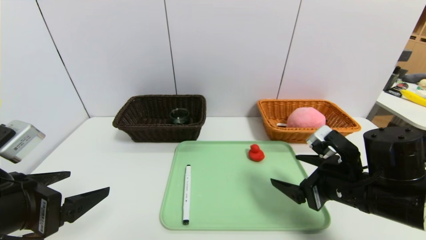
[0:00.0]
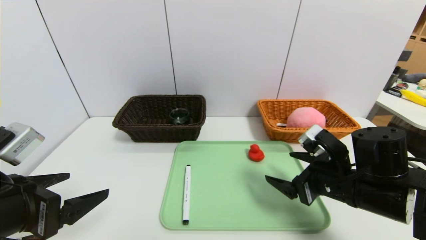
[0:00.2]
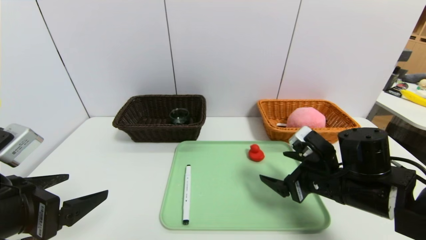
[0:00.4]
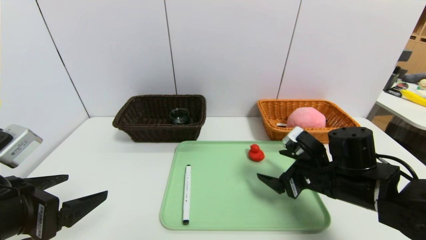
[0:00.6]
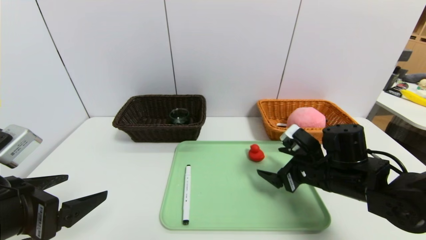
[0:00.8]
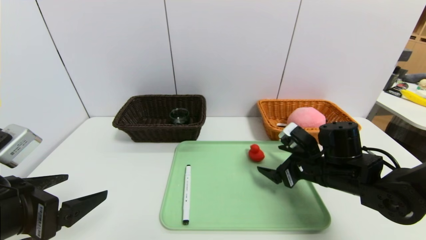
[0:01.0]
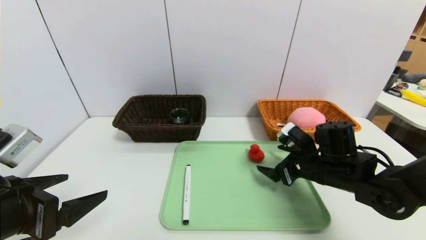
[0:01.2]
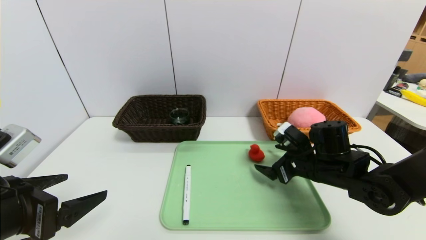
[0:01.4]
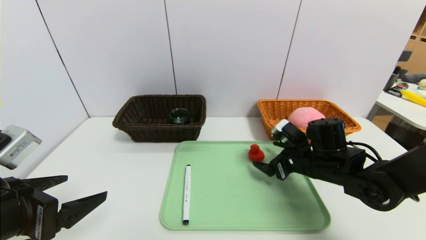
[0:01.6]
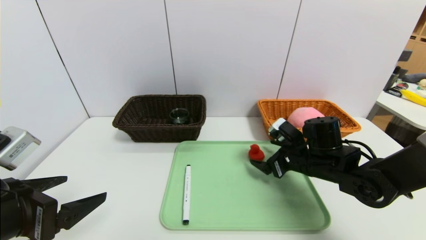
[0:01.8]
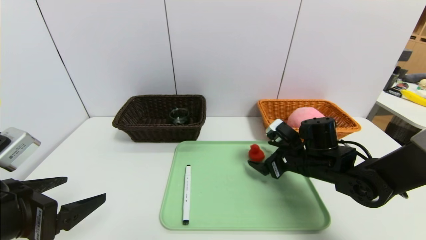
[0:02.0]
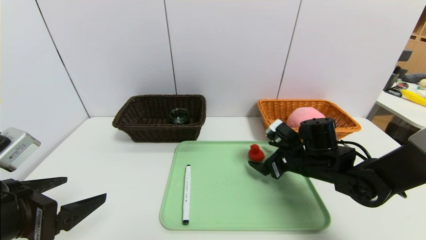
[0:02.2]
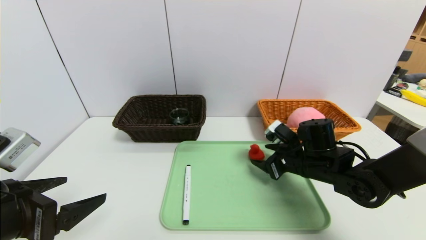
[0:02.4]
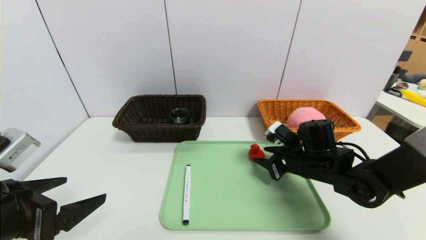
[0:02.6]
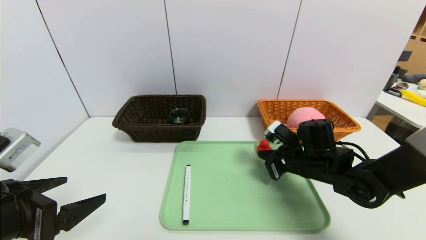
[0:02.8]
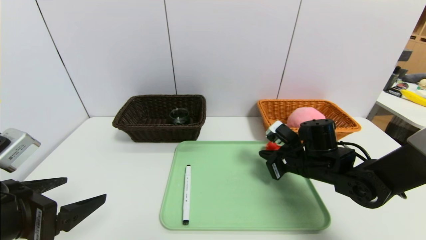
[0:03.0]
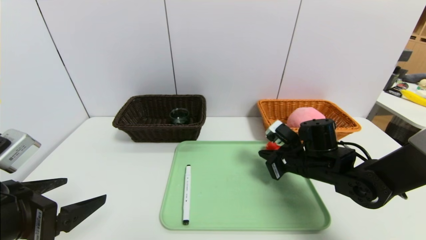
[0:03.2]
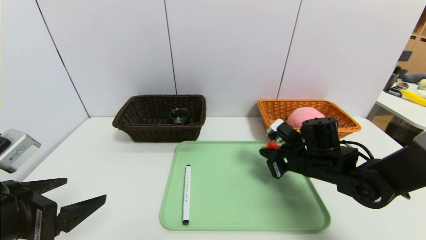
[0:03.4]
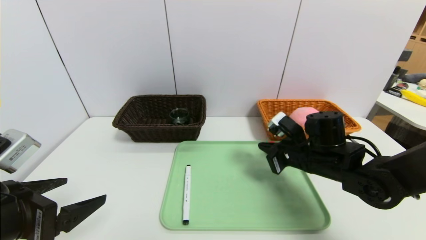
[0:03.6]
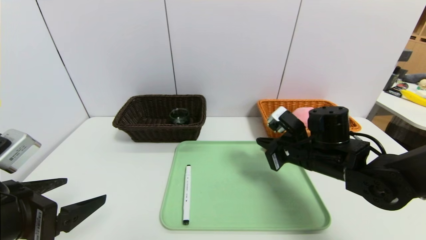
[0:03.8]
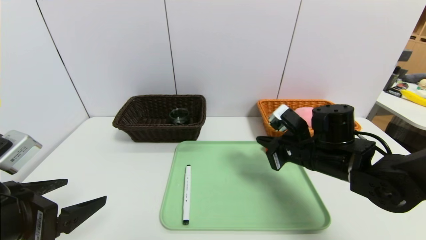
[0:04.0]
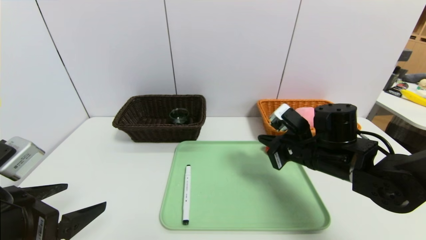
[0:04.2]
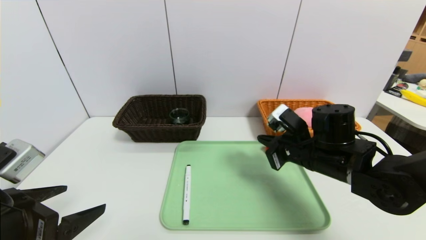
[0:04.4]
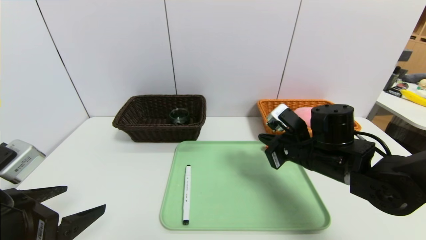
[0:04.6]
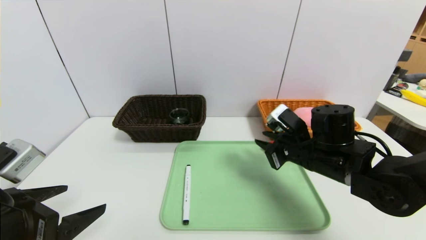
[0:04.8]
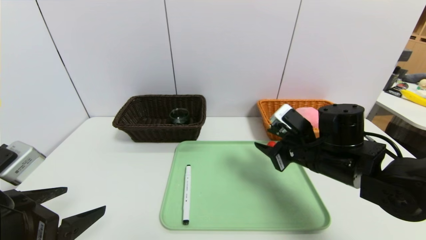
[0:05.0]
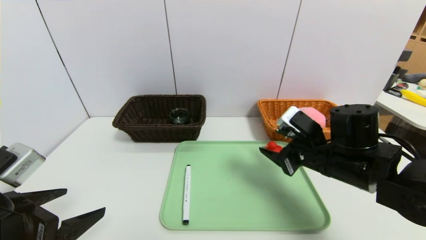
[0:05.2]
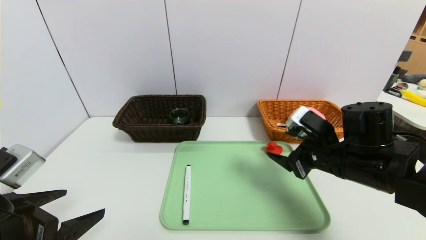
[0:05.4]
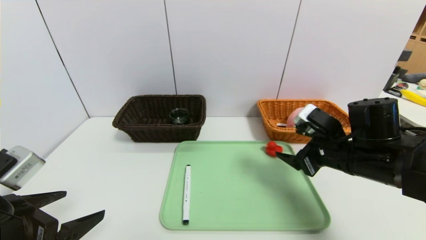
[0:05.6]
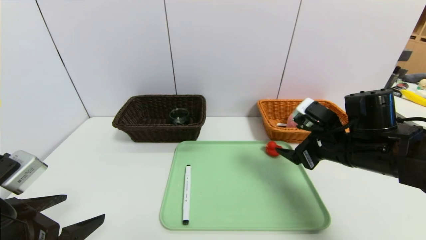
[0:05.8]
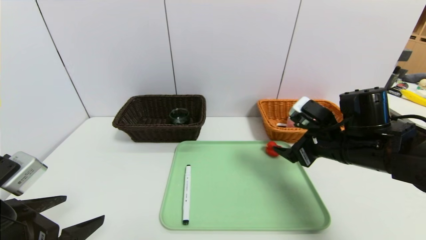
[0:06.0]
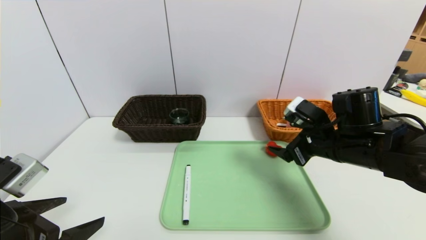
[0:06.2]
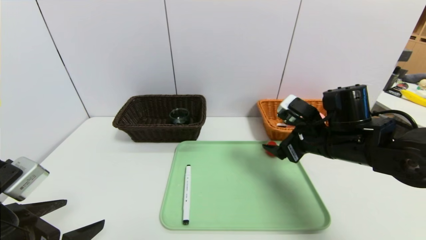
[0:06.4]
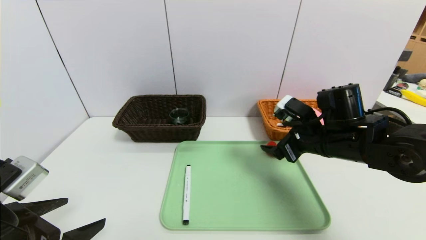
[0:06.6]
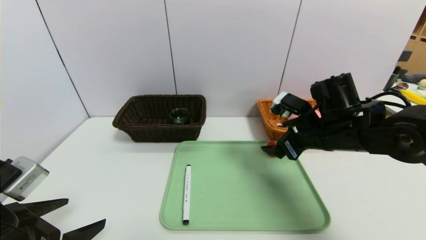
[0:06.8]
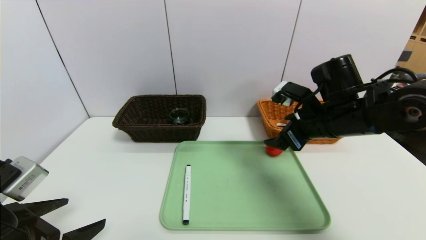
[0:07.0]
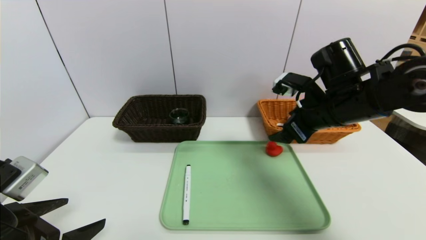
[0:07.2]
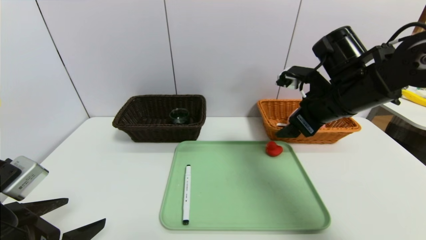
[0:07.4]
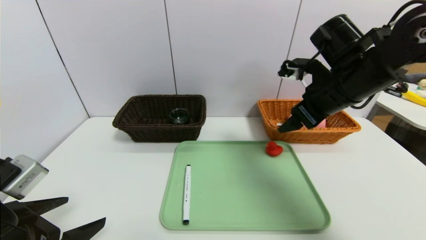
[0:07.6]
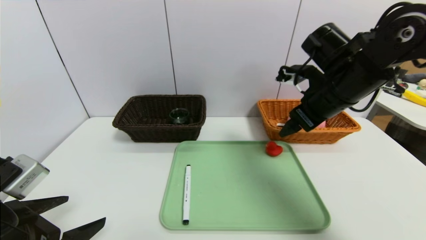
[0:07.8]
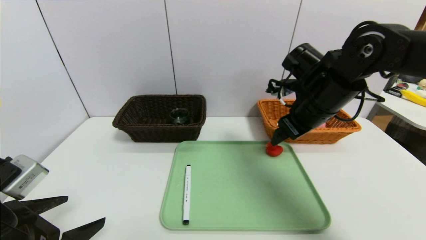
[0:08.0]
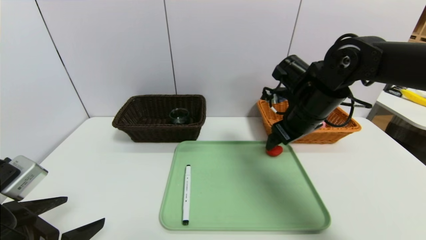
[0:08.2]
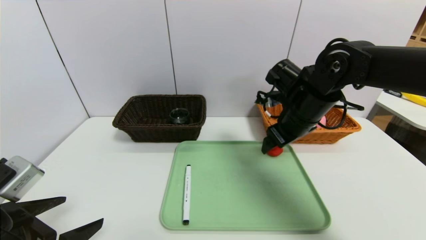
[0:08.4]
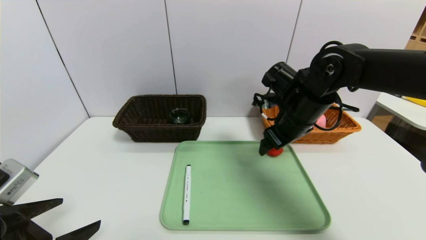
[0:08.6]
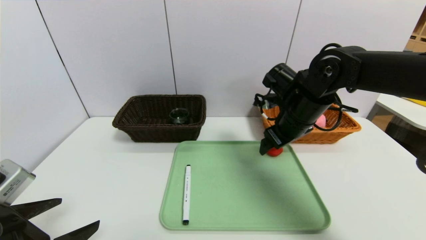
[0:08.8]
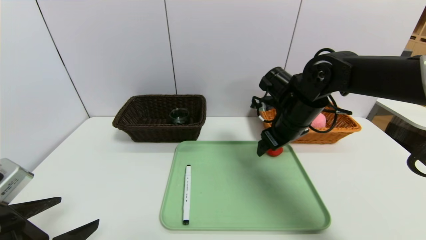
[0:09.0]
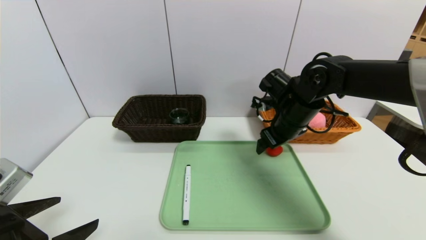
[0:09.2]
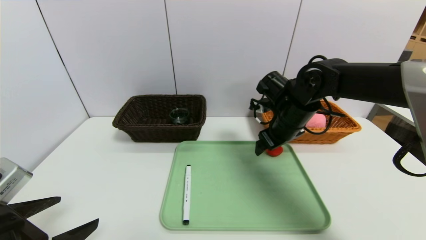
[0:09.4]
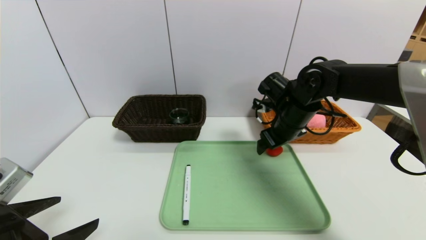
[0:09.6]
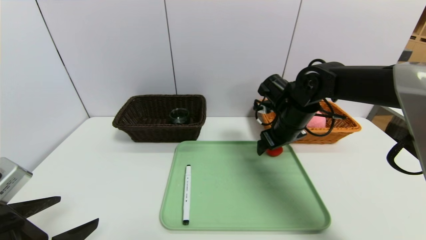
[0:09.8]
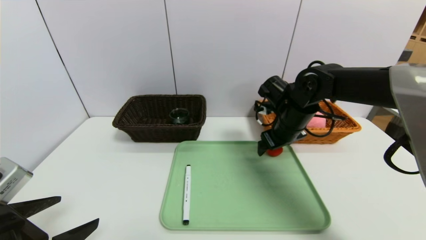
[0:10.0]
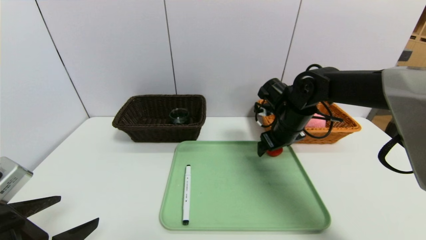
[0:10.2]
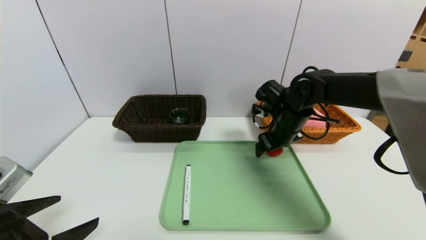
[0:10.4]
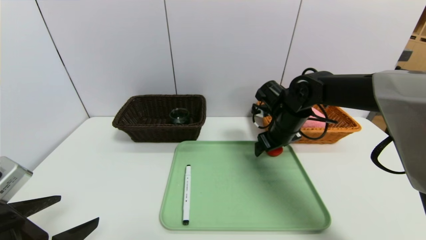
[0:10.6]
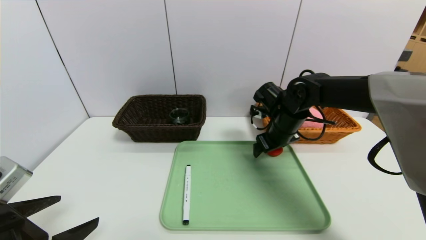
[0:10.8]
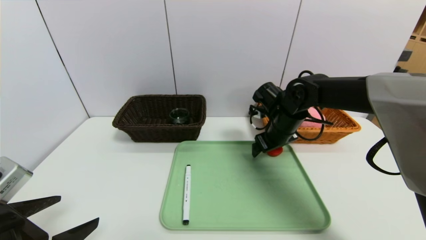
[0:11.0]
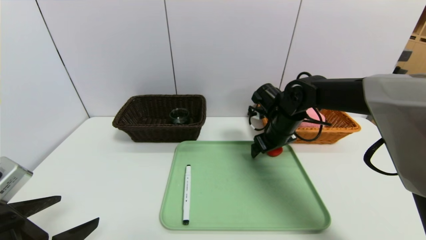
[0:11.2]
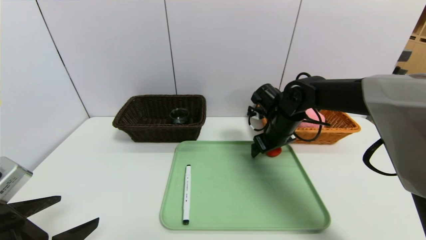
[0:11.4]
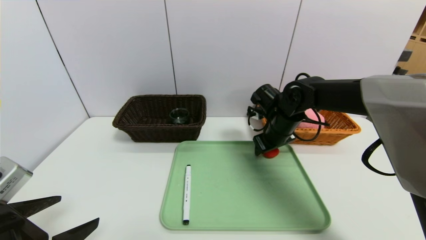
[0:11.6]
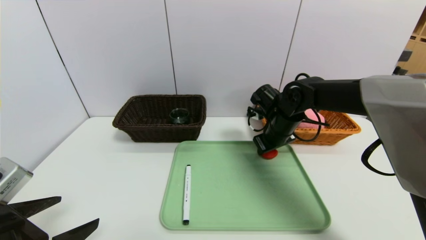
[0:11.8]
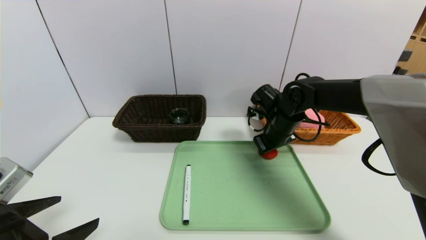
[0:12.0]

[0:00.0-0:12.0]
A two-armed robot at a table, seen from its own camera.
Task of the whole recording: place the food in the right basket with the right gripper, and place the non food items in the left basket with the left gripper.
0:00.0 to 0:01.6: The right gripper goes about 10 cm forward.
0:01.6 to 0:03.0: The right gripper closes.
0:03.0 to 0:04.4: The right gripper travels upward by approximately 5 cm.
0:04.4 to 0:06.0: The right gripper ends up roughly 5 cm from where it was, and opens up.
0:06.0 to 0:07.6: The right gripper heads upward, covering some 10 cm.
0:07.6 to 0:09.0: The right gripper is displaced downward by roughly 10 cm.
0:09.0 to 0:10.4: The grippers stay close to where they were, moving slightly.
0:10.4 to 0:12.0: The right gripper closes its fingers.

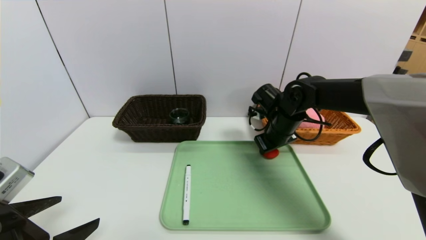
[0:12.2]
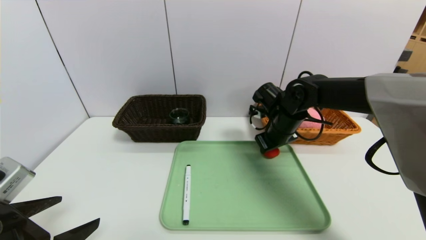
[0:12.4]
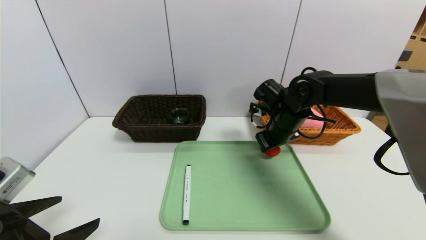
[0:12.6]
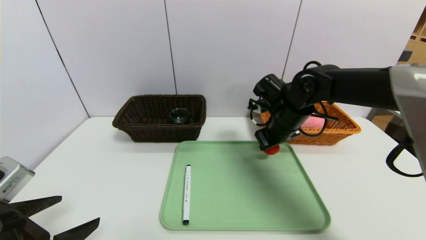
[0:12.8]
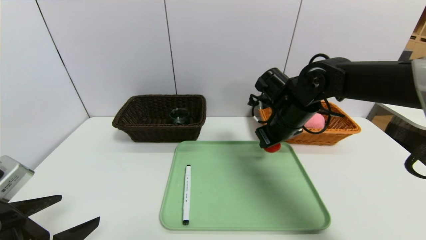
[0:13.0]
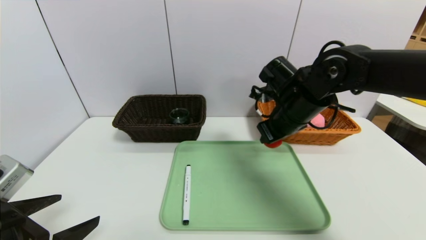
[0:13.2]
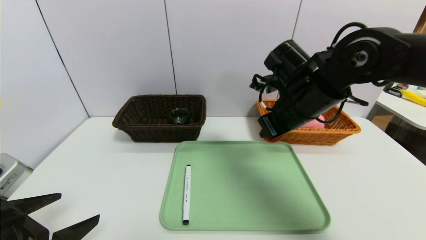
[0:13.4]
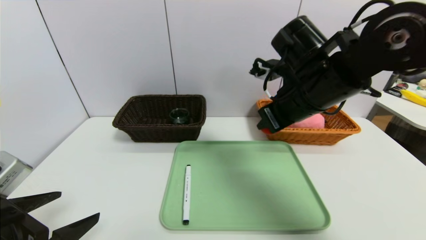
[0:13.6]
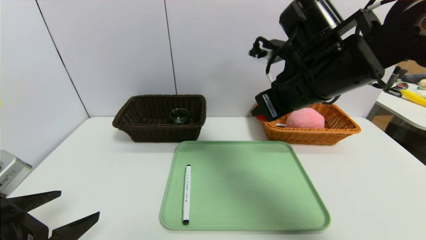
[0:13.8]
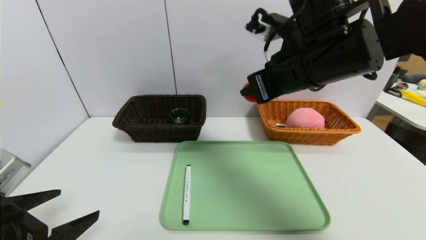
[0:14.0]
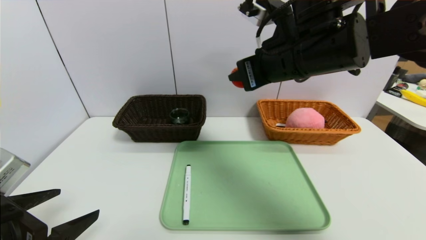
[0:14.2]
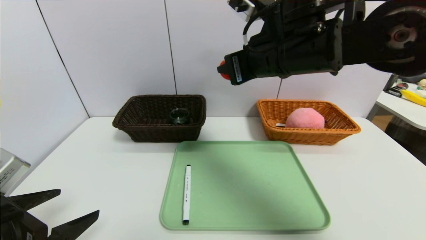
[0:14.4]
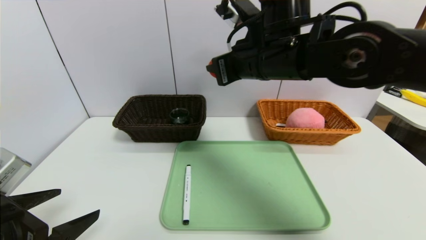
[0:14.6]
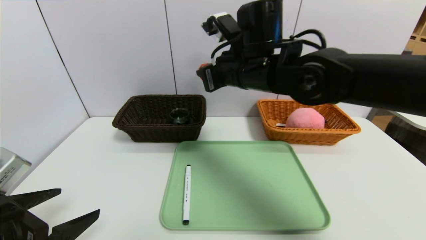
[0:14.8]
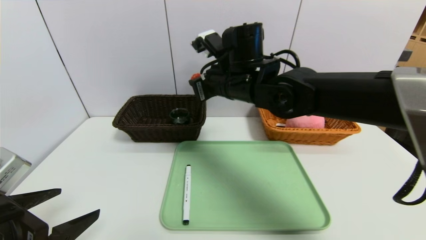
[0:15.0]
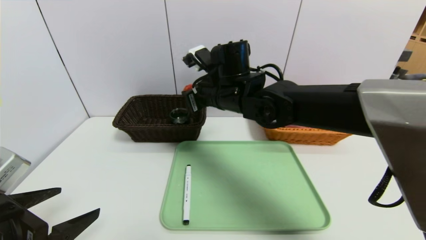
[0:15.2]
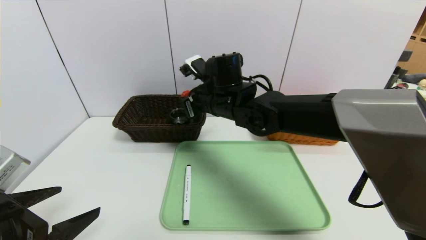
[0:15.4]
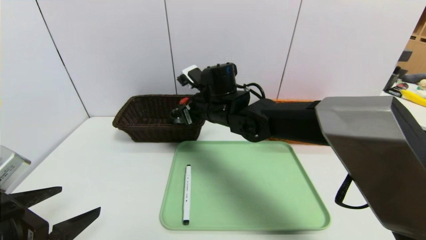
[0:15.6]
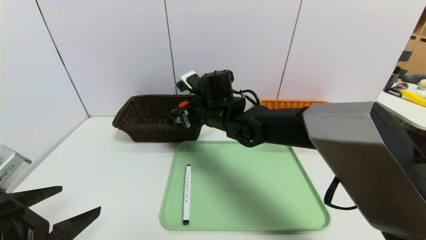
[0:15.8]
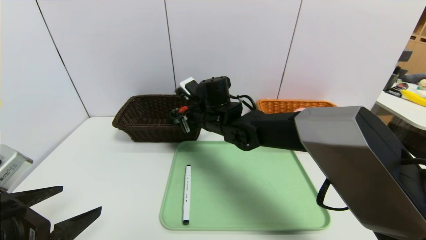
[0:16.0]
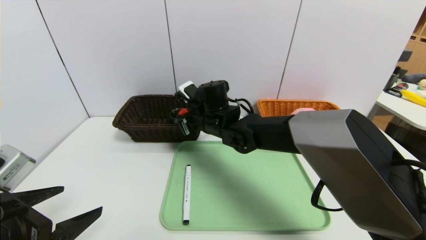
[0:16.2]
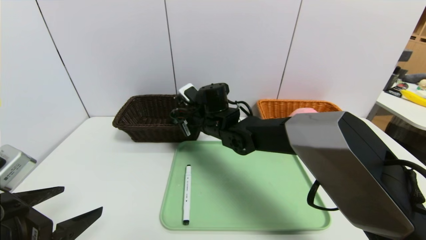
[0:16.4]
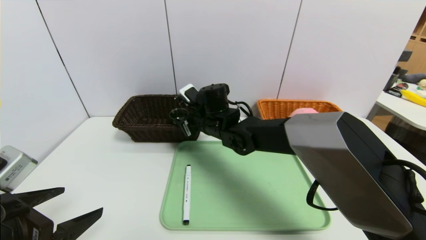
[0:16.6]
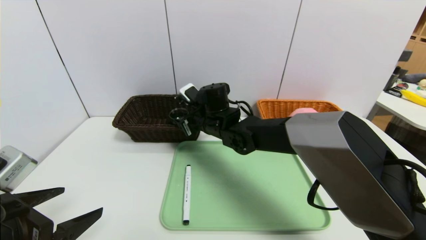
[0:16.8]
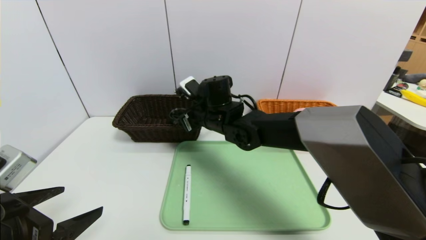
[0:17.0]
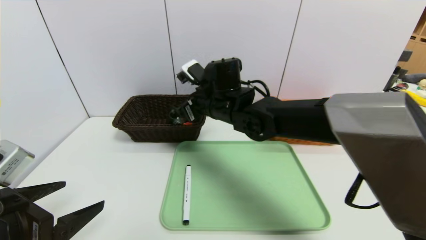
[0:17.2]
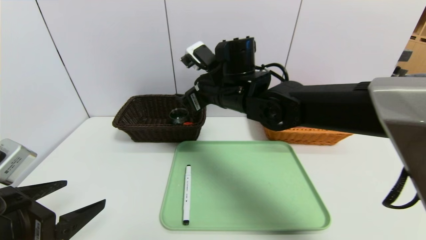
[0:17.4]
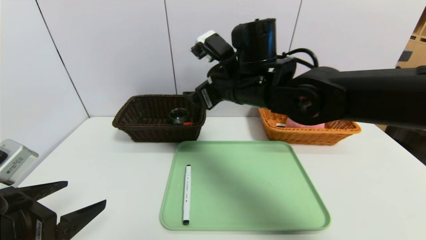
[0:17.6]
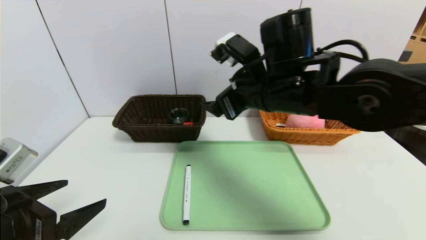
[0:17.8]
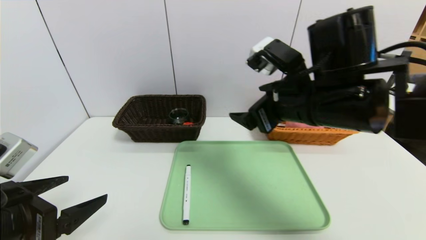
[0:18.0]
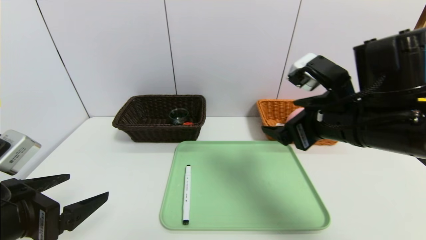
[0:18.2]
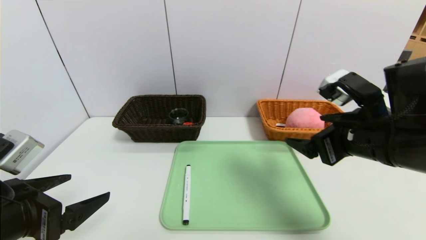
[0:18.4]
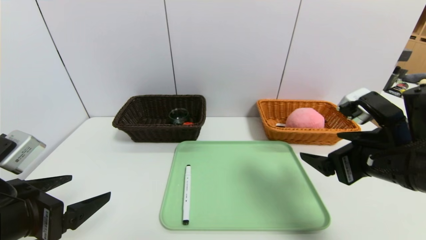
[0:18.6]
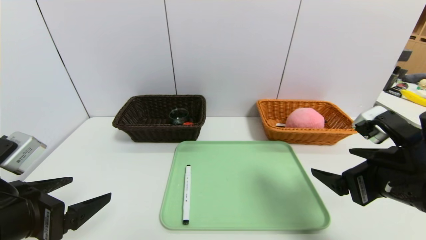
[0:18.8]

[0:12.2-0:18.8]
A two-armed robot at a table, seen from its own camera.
Task of the whole recording: place the food in the right basket with the right gripper, and place the non food items in the left basket with the left gripper.
0:12.2 to 0:13.8: The right gripper goes some 20 cm upward and backward.
0:13.8 to 0:15.4: The right gripper heads to the left, forward and downward, covering some 20 cm.
0:15.4 to 0:17.2: The right gripper opens its fingers.
0:17.2 to 0:18.8: The right gripper moves to the right and backward, approximately 30 cm.
